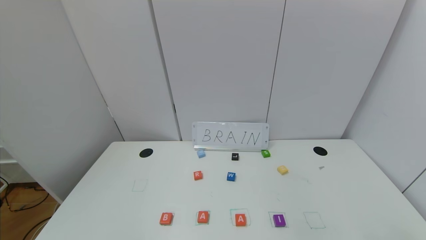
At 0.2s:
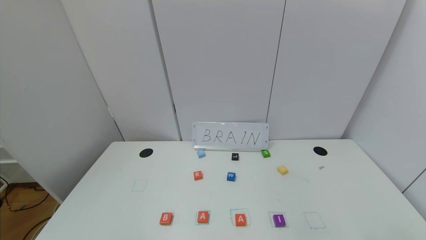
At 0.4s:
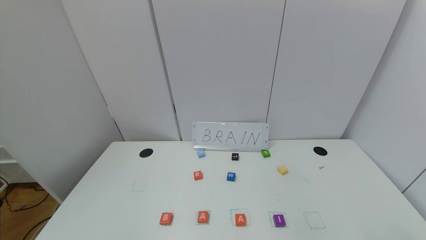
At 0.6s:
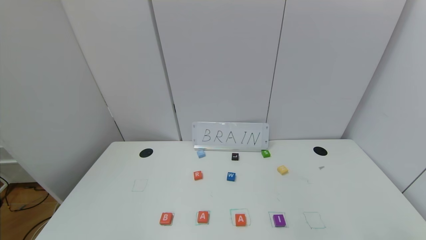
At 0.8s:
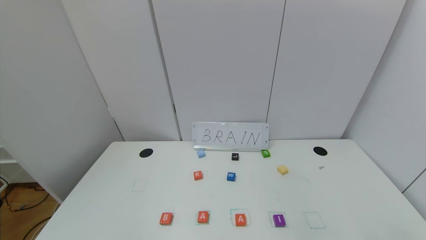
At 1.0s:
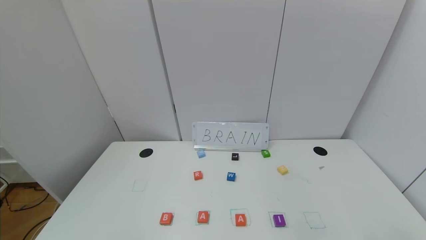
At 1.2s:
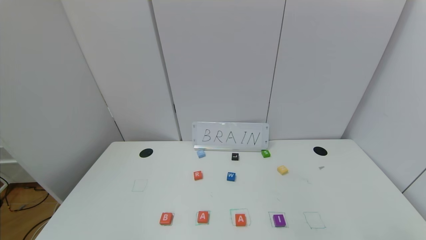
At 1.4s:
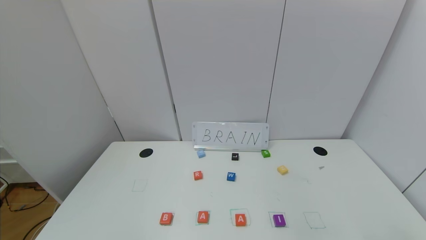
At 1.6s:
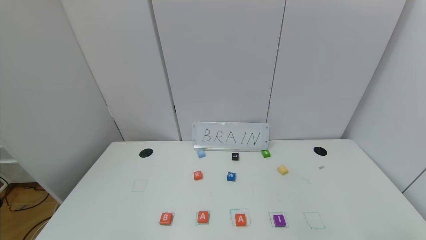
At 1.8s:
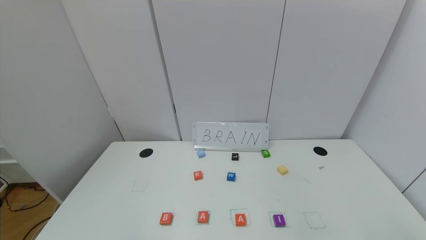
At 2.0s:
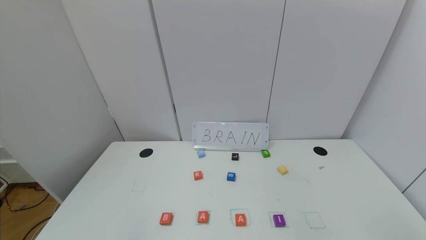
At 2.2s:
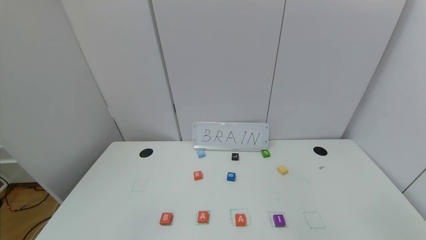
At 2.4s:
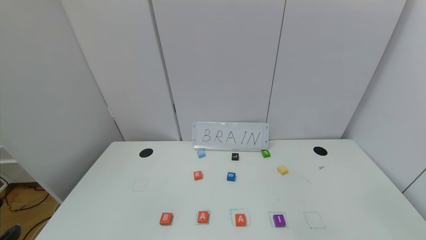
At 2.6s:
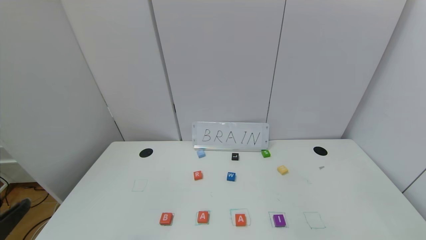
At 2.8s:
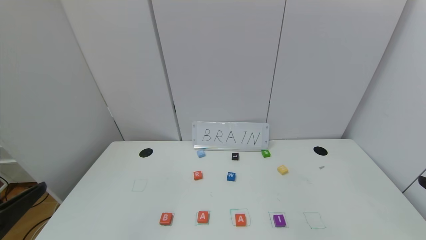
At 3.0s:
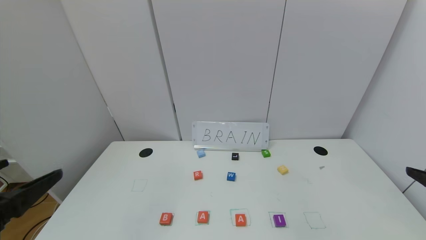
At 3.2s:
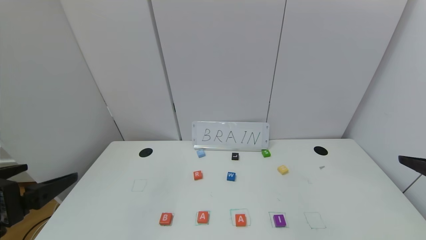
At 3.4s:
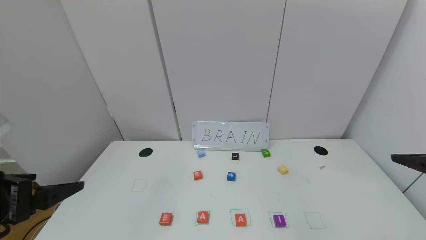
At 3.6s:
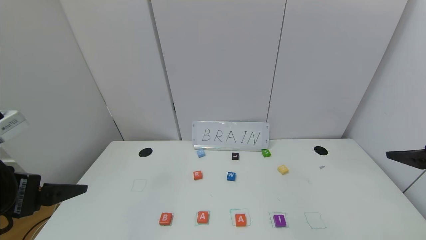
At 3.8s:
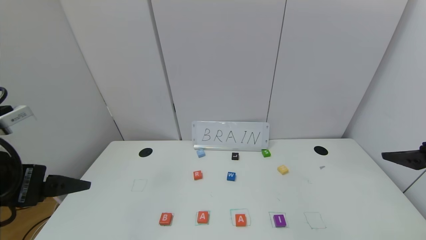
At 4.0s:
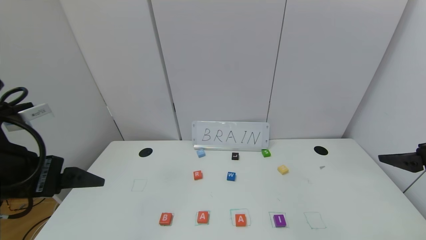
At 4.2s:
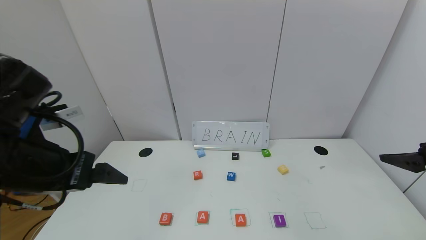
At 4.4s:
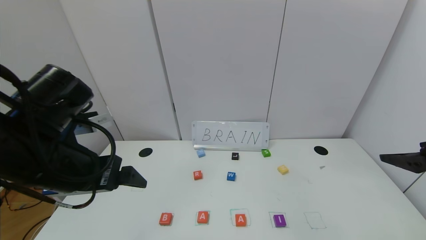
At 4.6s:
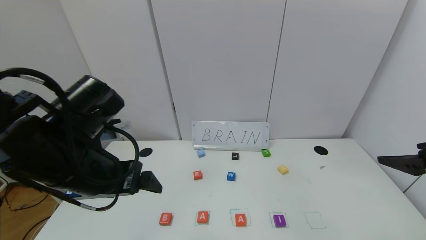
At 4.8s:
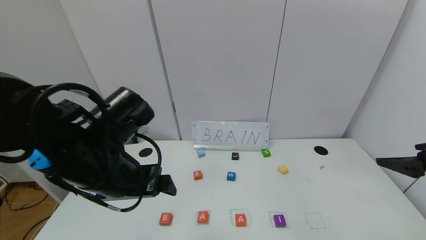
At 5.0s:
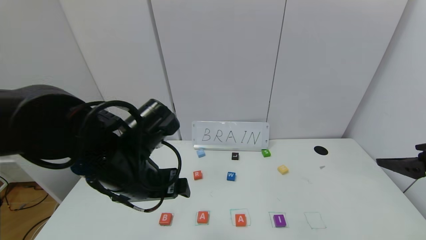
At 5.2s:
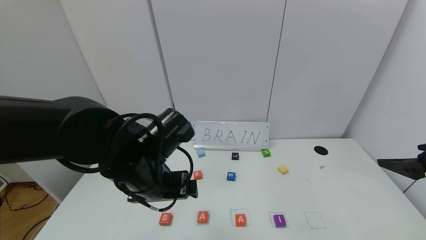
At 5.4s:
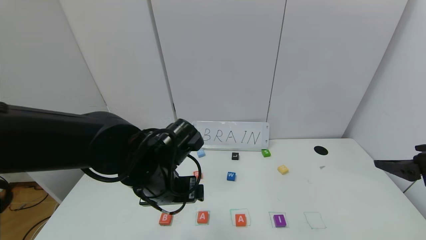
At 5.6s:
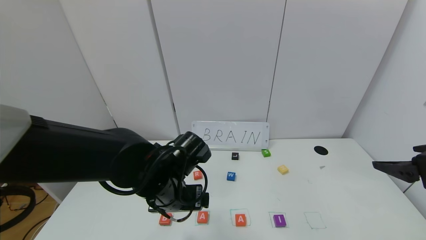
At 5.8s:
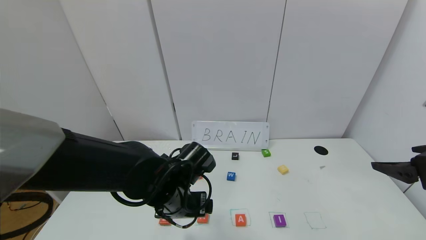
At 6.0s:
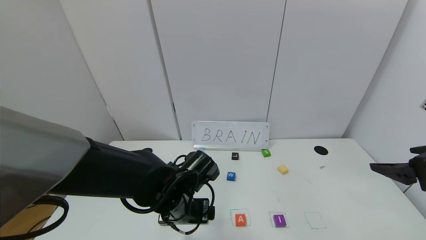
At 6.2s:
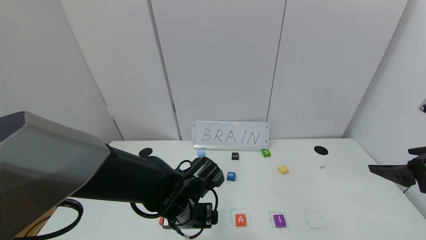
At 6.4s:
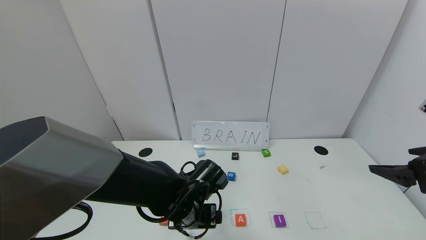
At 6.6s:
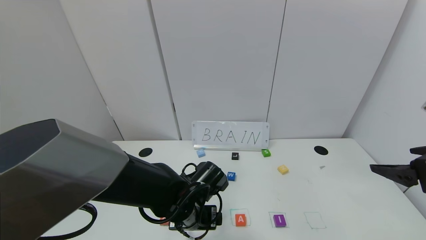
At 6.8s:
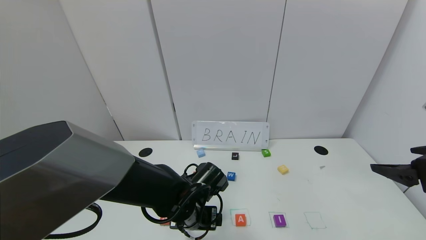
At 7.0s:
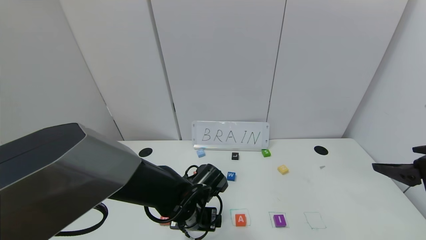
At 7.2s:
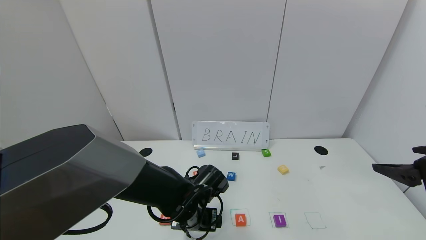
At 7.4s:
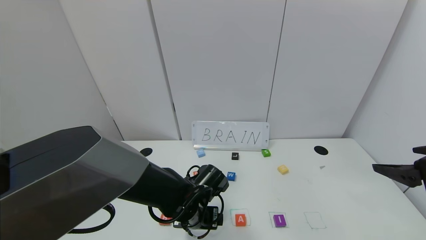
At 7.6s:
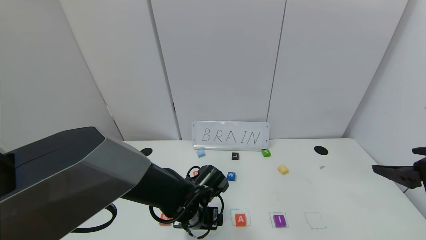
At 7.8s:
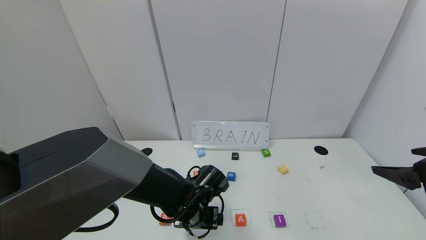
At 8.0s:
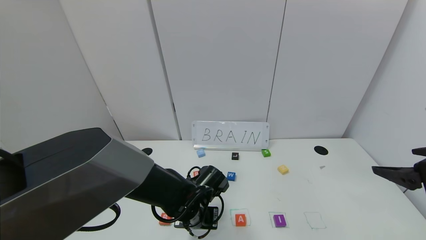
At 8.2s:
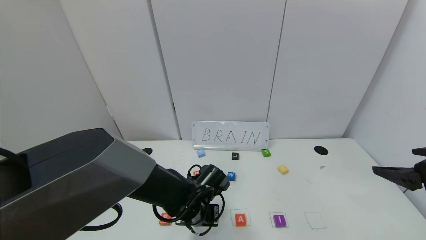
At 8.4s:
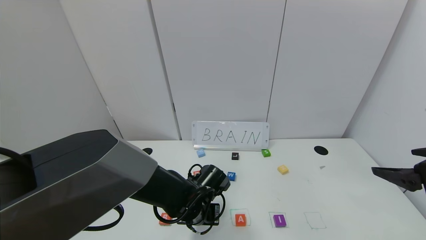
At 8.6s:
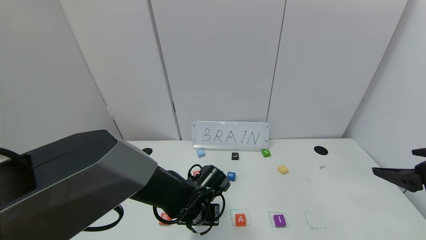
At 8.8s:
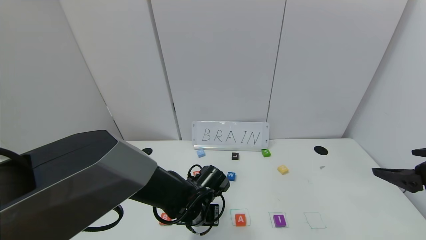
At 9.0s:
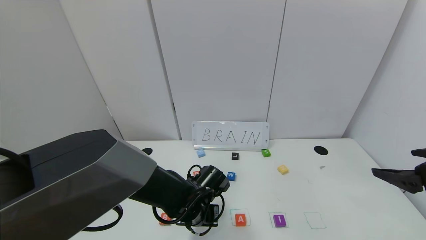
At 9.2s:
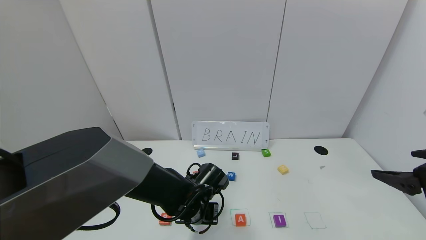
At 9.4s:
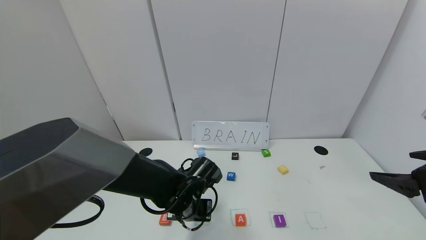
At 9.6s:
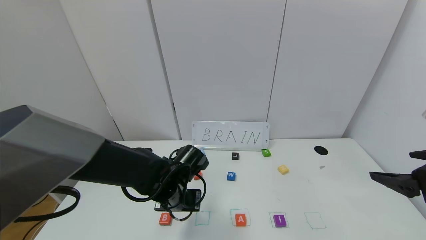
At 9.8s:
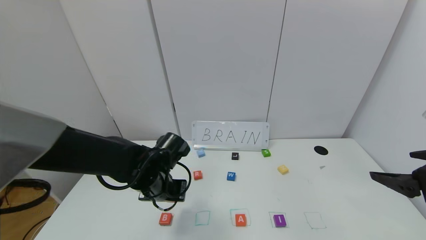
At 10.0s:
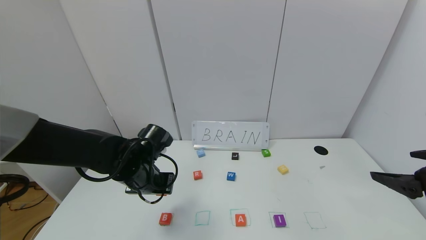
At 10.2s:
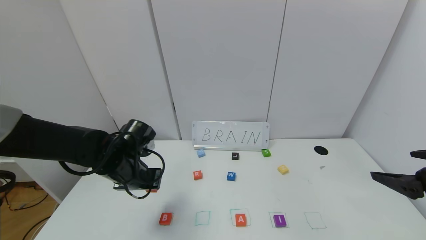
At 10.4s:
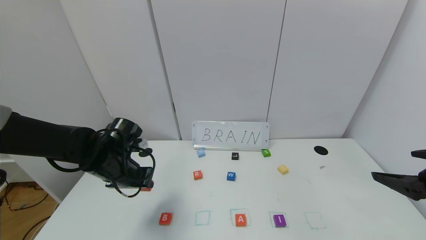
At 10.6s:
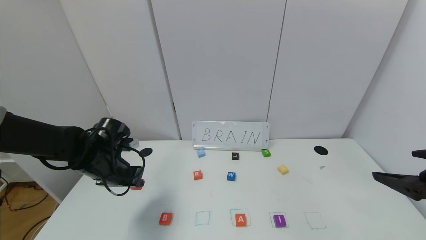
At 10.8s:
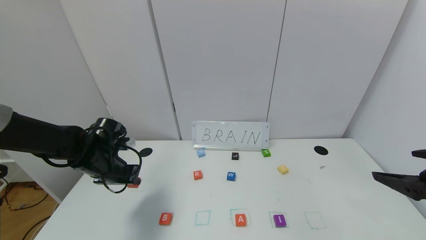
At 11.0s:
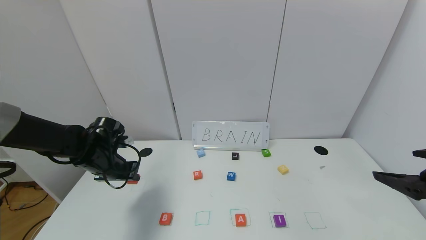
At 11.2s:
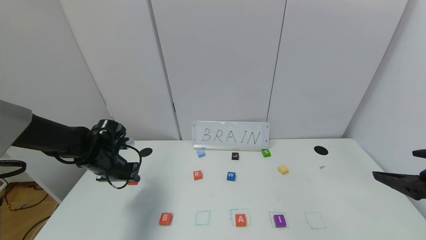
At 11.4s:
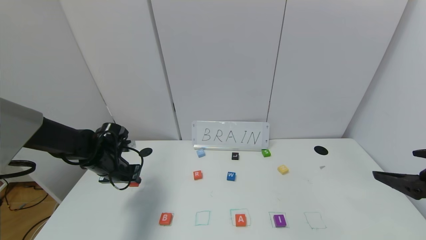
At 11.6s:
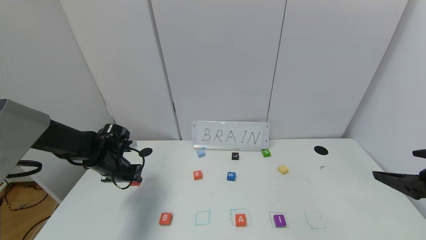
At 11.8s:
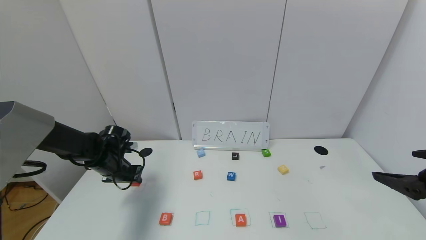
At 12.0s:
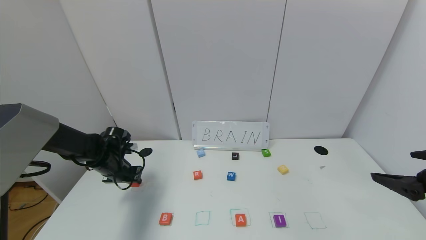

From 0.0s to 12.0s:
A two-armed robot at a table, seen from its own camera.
Task of the whole recording: use the gripper to find blocks with the letters b, a, a, and i on the table and arrange them into BAAI, then find r and N and turn the arranged baai into brian.
From 0.0s to 1.6s: Neither gripper changes place.
From 1.6s to 3.0s: The left gripper is displaced upward and forward by some 20 cm.
From 3.0s to 4.4s: The right gripper moves forward, about 5 cm; the left gripper is displaced forward and to the right by some 15 cm.
From 4.4s to 6.0s: The left gripper travels downward and to the right by approximately 20 cm.
From 6.0s to 7.6s: The left gripper is displaced downward by about 5 cm.
From 7.6s to 9.0s: The left gripper closes.
From 9.0s to 10.4s: The left gripper moves to the left and upward, roughly 20 cm.
From 10.4s to 12.0s: The left gripper moves to the left, forward and downward, roughly 15 cm.

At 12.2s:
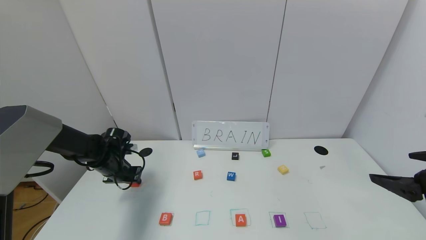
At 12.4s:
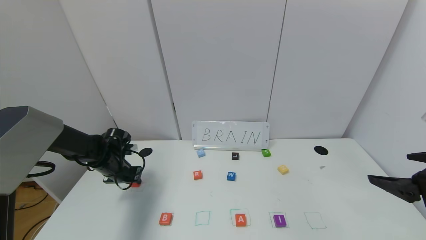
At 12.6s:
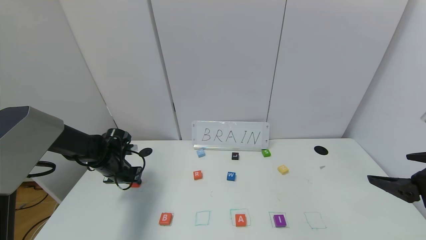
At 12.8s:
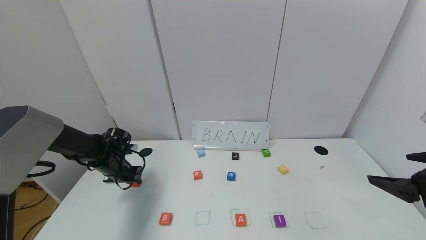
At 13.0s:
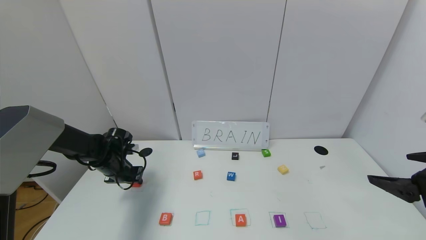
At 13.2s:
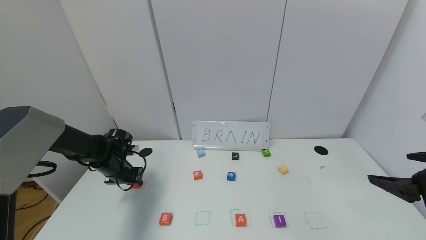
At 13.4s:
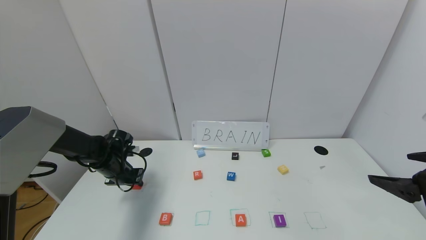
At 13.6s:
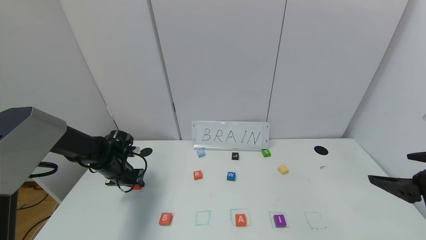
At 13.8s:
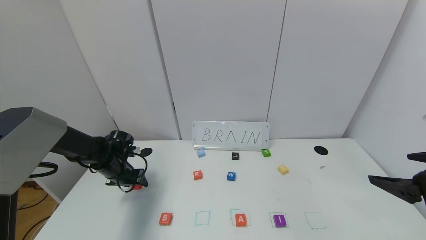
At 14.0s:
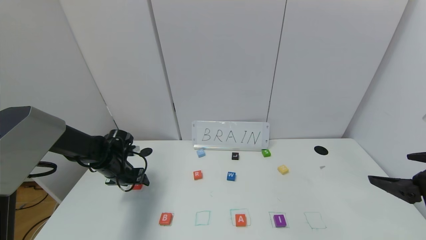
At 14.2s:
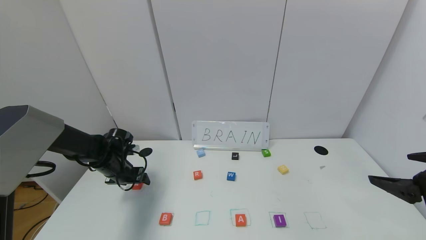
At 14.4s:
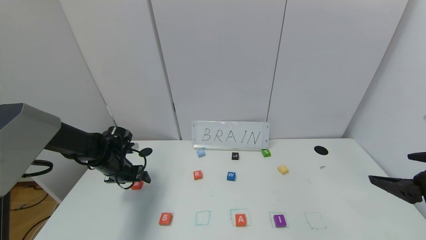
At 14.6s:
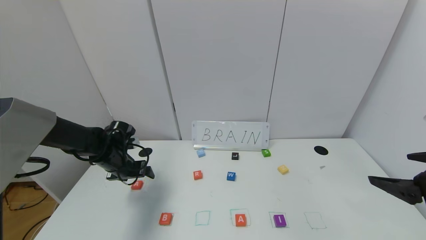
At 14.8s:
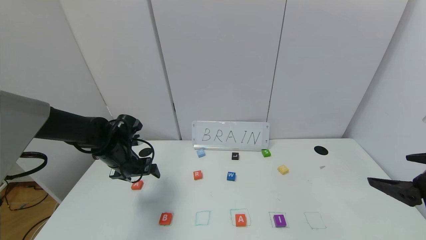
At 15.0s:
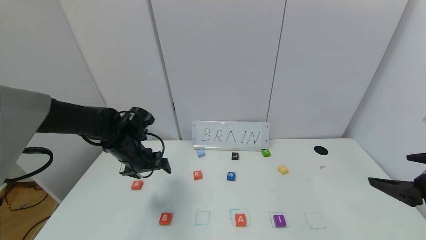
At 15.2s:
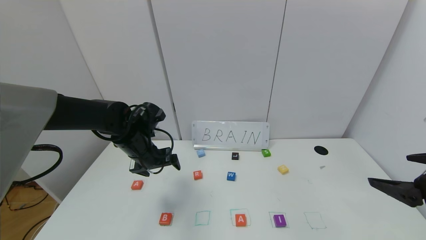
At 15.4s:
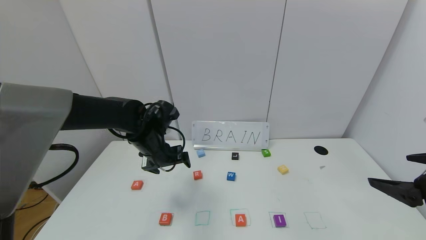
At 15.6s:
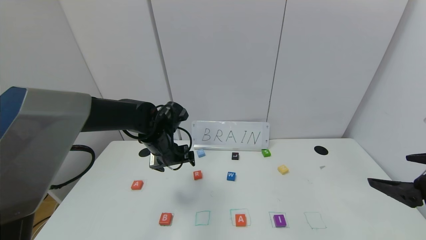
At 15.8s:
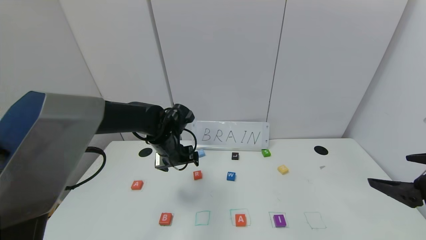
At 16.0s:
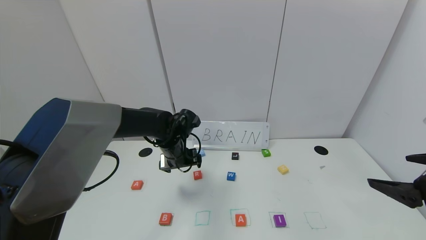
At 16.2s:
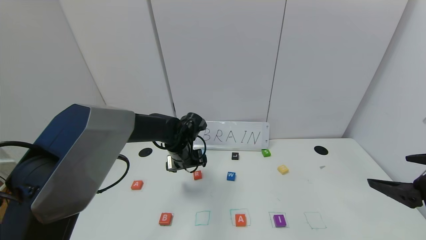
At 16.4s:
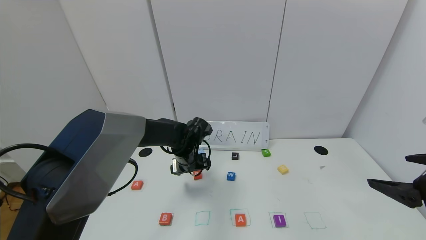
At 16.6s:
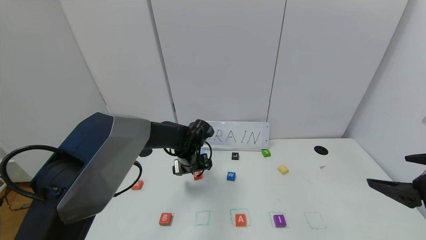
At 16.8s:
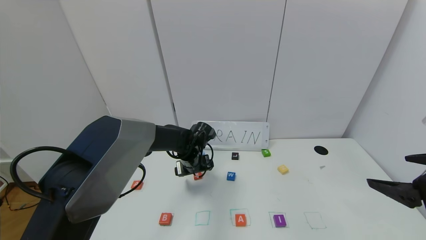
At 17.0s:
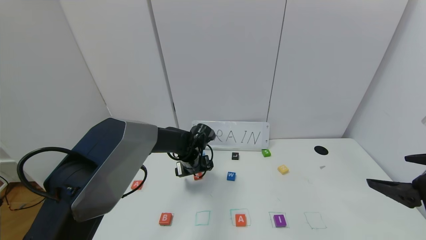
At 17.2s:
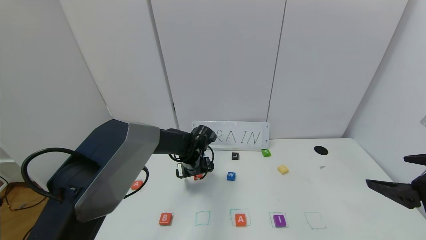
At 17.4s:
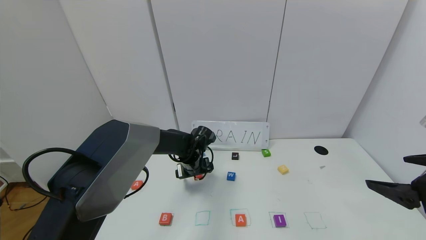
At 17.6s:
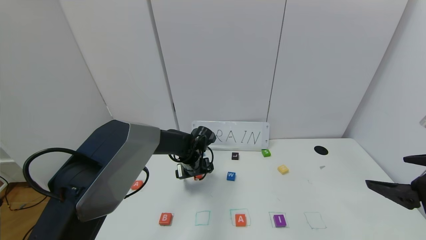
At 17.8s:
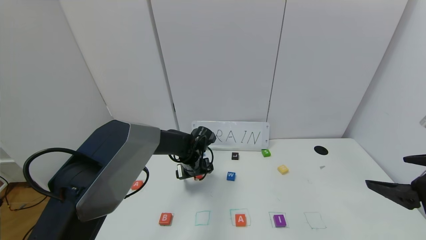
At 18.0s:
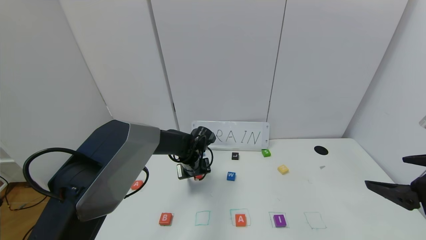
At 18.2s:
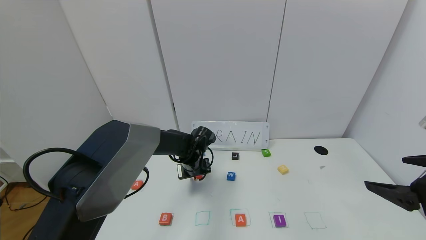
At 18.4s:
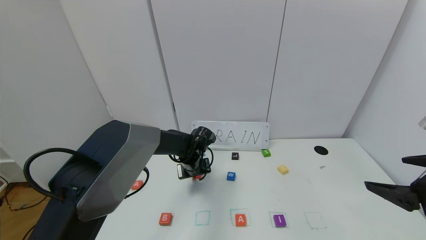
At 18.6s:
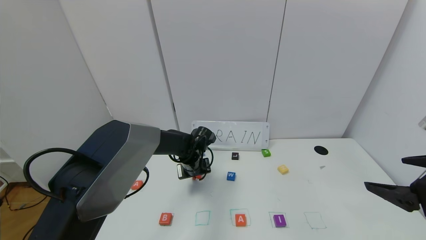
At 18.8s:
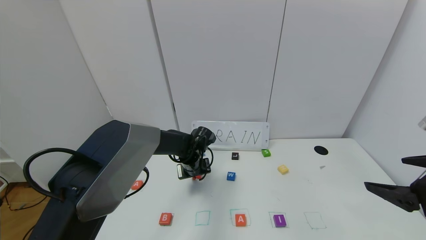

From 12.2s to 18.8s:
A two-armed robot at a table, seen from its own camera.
Task of the whole recording: use the gripper to find blocks with the letters b, a, a, and i on the table and arrange them into BAAI, then find r and N and turn the arranged baai into brian.
From 12.2s to 13.8s: The left gripper opens up.
From 13.8s to 15.4s: The left gripper goes roughly 15 cm to the right and upward, and opens.
From 15.4s to 17.2s: The left gripper is displaced downward, to the right and forward by about 15 cm.
From 17.2s to 18.8s: The left gripper closes.
